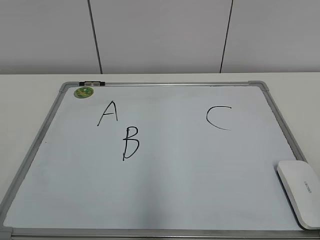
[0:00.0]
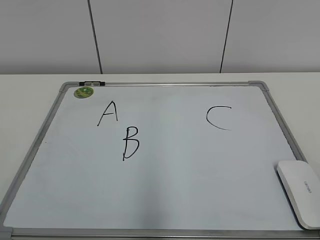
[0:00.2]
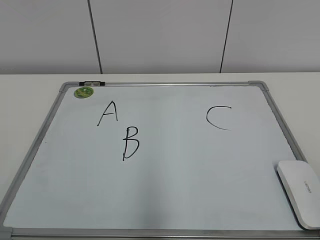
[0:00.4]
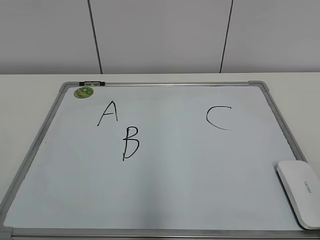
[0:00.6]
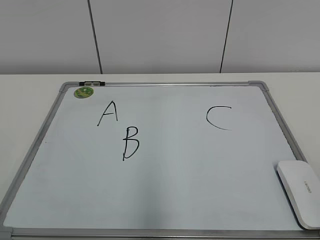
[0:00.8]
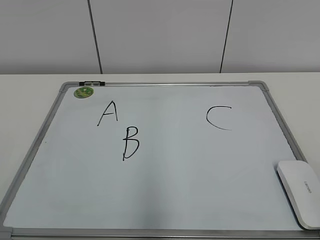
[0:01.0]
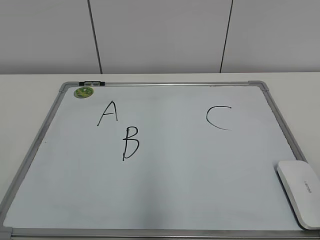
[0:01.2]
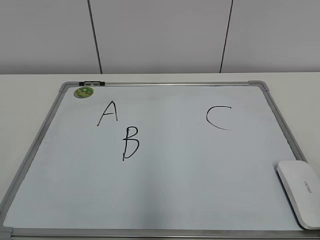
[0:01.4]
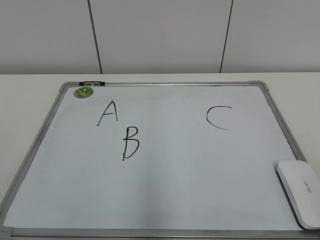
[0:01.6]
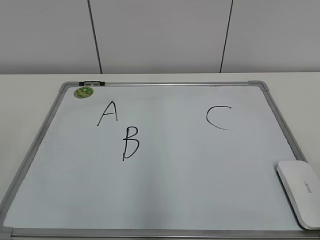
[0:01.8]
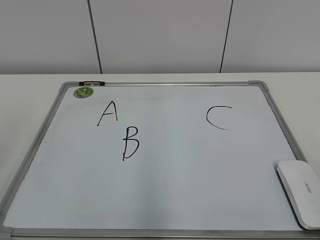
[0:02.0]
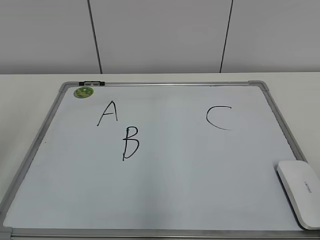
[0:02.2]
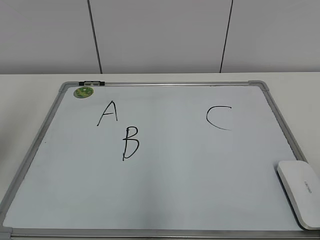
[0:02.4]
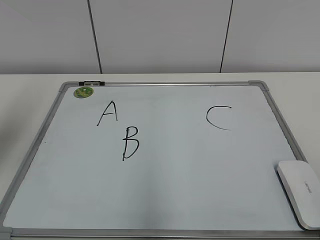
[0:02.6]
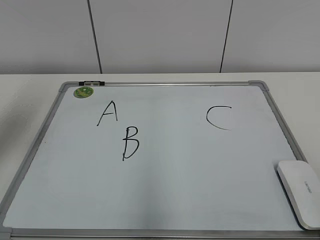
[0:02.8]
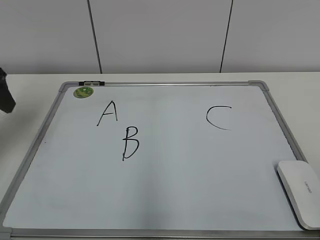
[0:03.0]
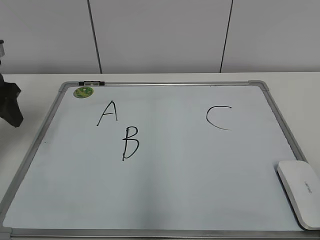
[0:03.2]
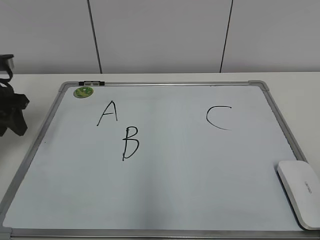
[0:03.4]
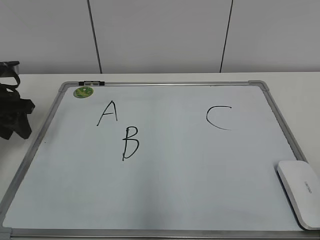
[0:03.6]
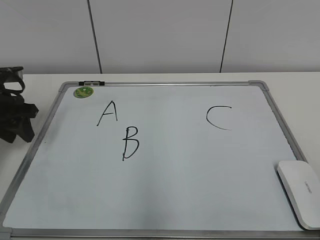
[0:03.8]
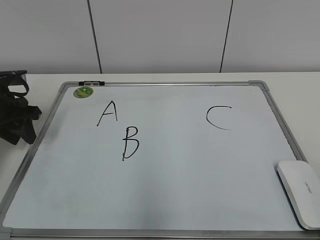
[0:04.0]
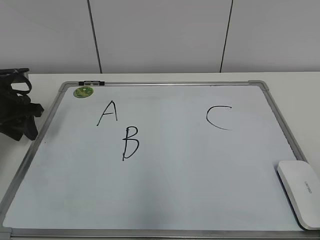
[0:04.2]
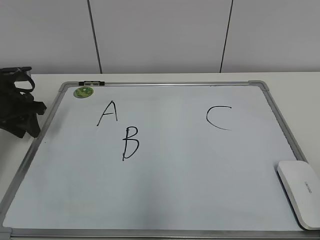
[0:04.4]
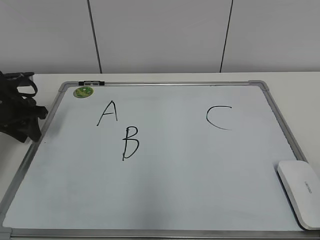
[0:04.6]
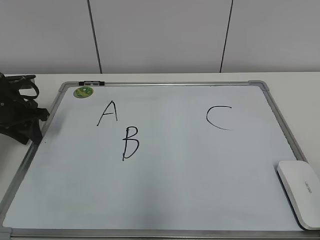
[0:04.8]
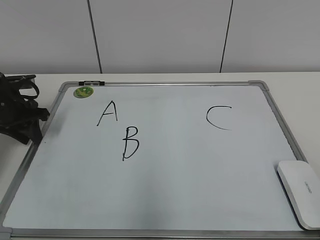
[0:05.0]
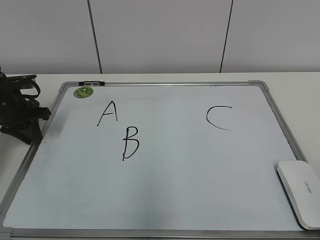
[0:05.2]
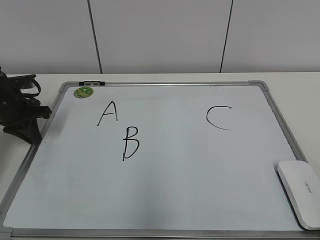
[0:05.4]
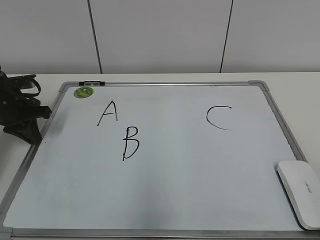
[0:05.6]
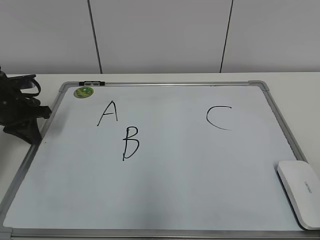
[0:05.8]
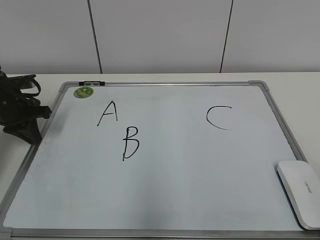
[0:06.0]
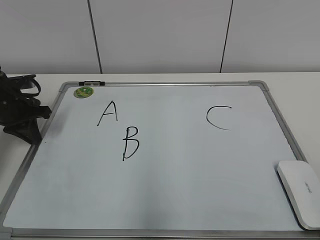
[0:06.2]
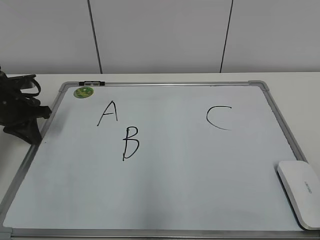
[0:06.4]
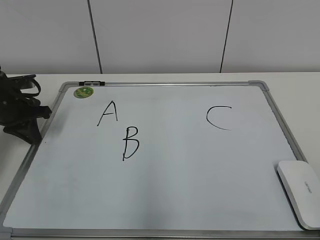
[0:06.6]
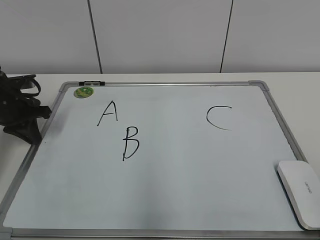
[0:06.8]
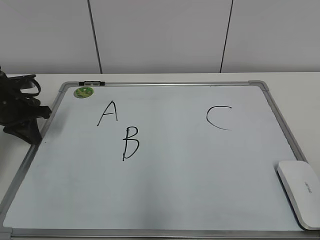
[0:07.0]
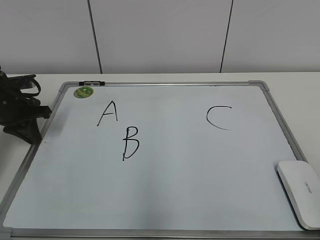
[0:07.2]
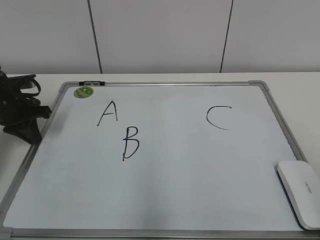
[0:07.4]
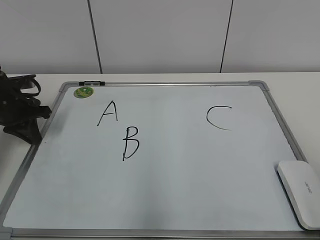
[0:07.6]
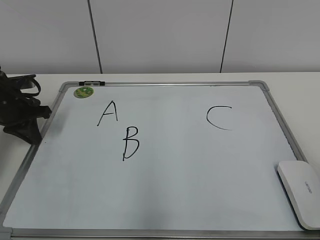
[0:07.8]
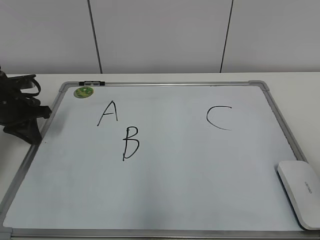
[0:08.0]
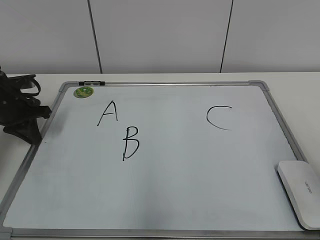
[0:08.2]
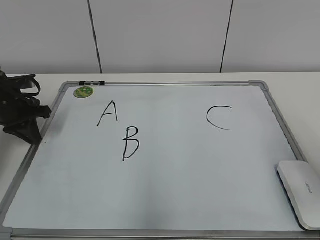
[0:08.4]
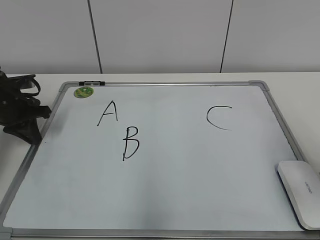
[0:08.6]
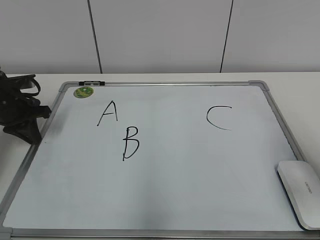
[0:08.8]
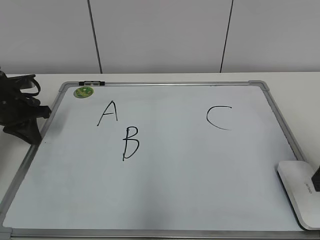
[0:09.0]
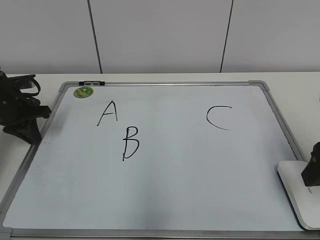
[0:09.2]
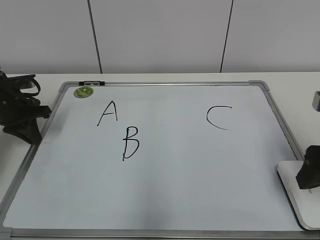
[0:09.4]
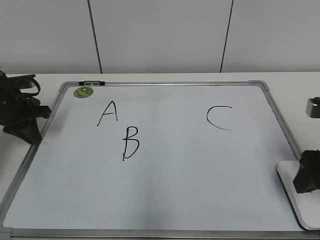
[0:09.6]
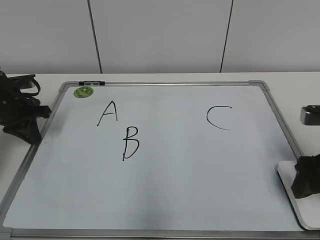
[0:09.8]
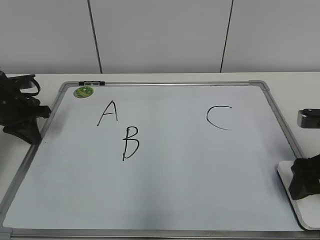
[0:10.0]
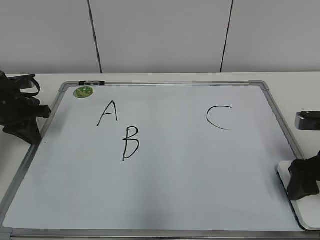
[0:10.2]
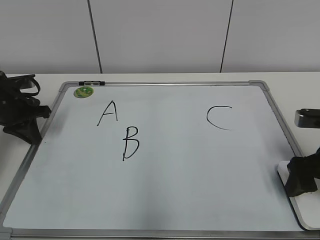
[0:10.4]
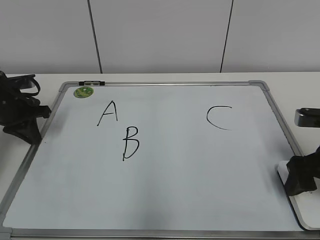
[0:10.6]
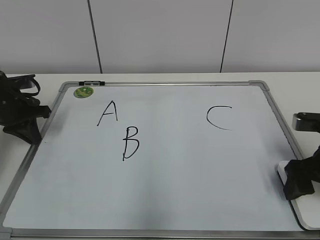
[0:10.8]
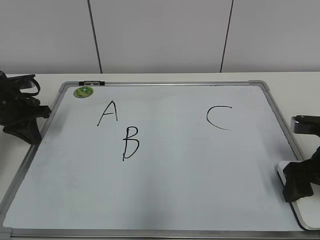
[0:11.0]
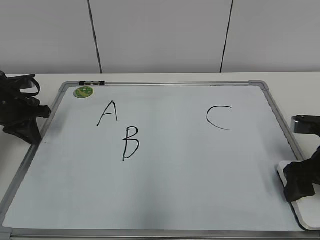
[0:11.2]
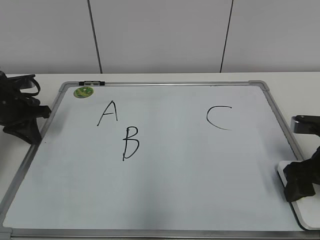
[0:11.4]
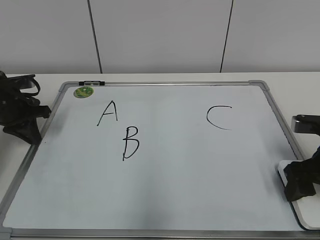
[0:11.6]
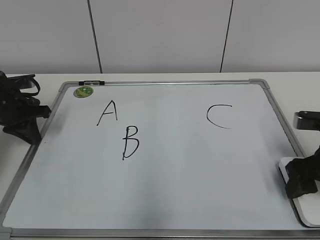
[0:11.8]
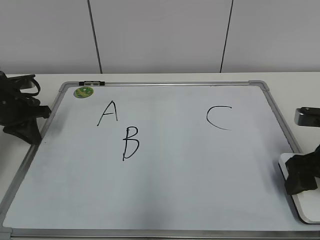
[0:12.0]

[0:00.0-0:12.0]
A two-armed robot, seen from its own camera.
Task of the whole recording: pick up the eraser on the blackboard and erase the letter "B".
Step, 0:00.0 to 0:05.2: Hold the drawing board steady with your left hand.
Step, 0:05.4 to 0:11.6: Grab the eraser with your right hand.
0:01.6 to 0:03.0: The left gripper moves forward, some 30 cm.
0:03.0 to 0:04.4: The left gripper shifts some 15 cm downward and forward, and closes up.
0:04.4 to 0:06.0: The left gripper closes its fingers.
0:07.6 to 0:09.0: The right gripper heads forward, covering about 15 cm.
0:09.0 to 0:10.4: The right gripper is displaced downward and forward by approximately 10 cm, and opens up.
0:10.4 to 0:12.0: The right gripper closes its fingers.

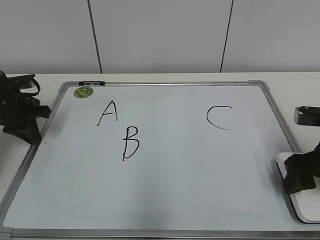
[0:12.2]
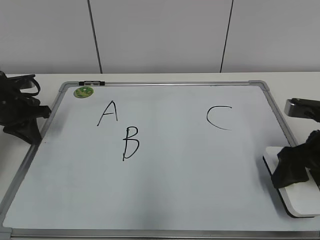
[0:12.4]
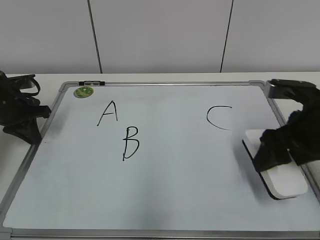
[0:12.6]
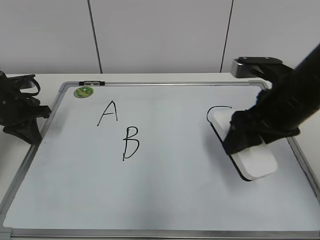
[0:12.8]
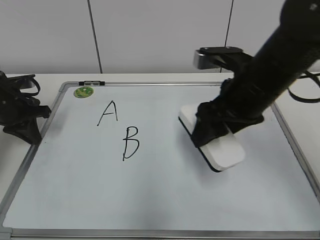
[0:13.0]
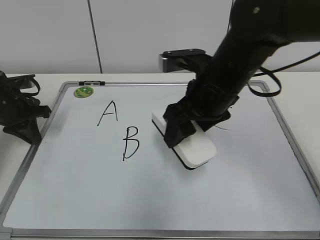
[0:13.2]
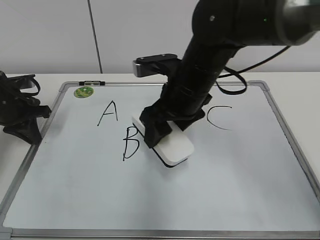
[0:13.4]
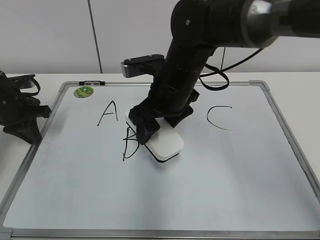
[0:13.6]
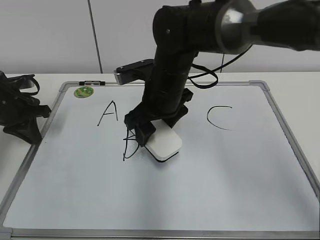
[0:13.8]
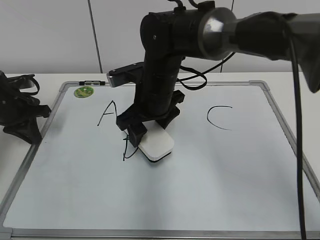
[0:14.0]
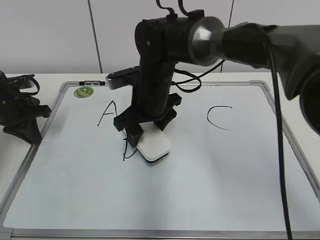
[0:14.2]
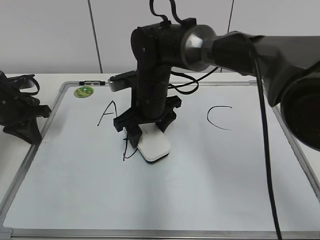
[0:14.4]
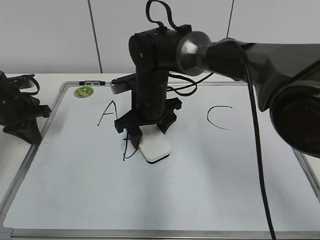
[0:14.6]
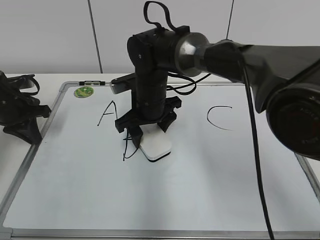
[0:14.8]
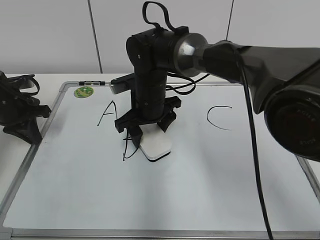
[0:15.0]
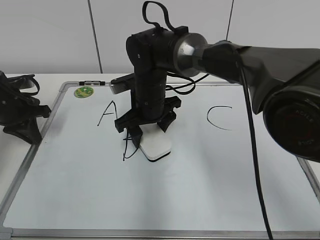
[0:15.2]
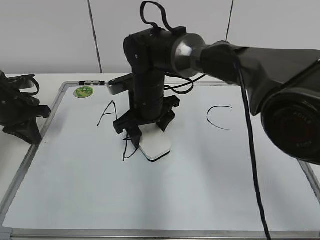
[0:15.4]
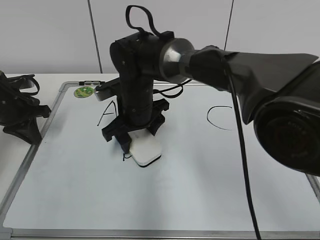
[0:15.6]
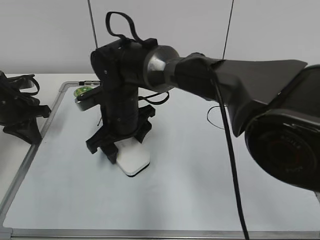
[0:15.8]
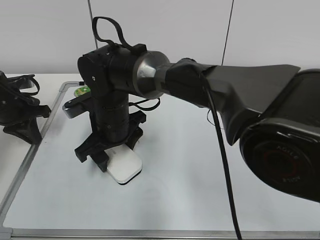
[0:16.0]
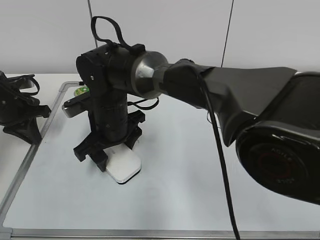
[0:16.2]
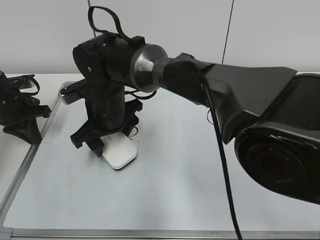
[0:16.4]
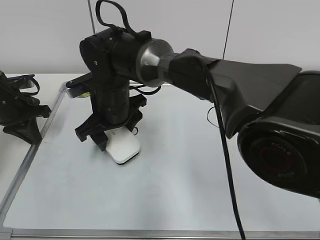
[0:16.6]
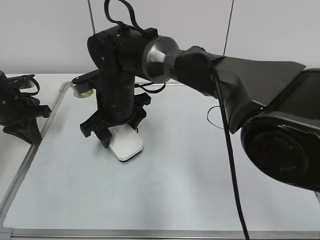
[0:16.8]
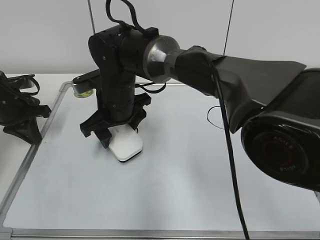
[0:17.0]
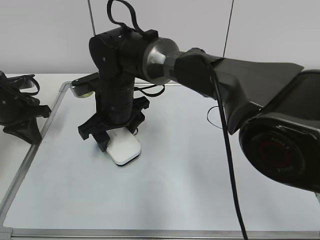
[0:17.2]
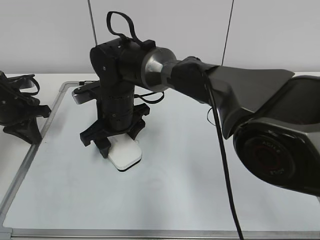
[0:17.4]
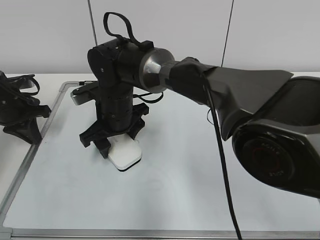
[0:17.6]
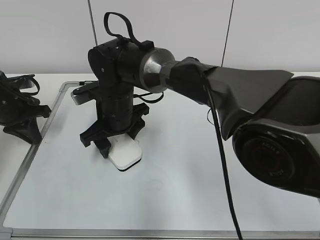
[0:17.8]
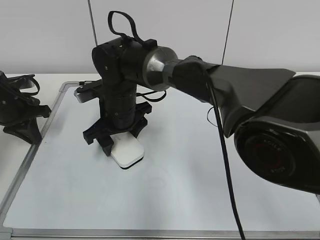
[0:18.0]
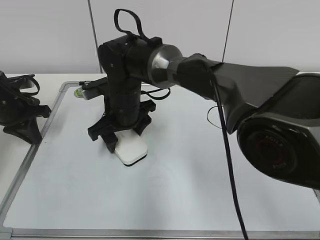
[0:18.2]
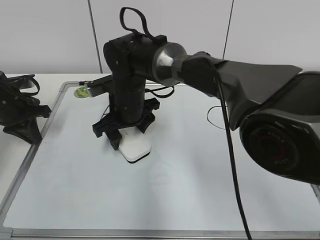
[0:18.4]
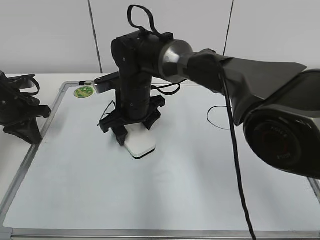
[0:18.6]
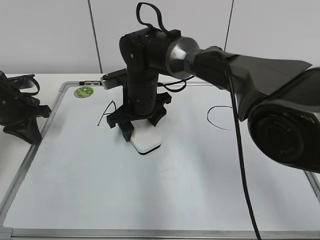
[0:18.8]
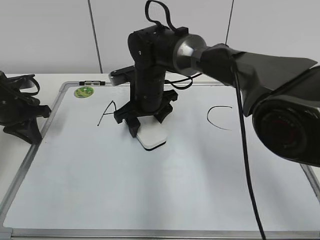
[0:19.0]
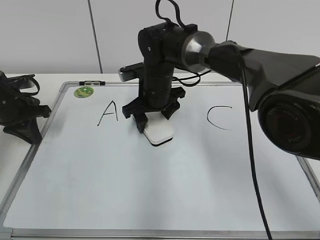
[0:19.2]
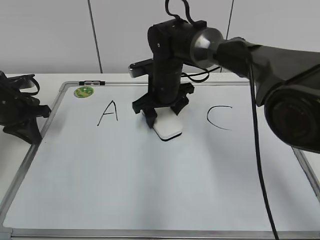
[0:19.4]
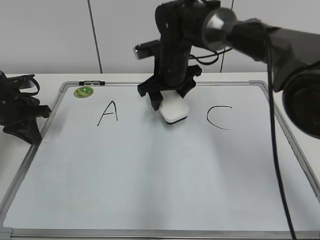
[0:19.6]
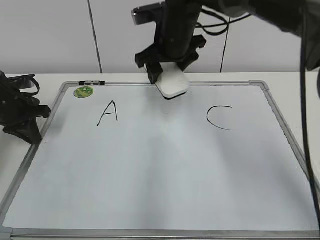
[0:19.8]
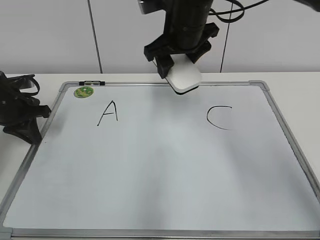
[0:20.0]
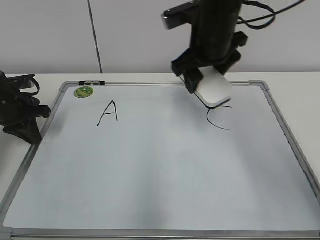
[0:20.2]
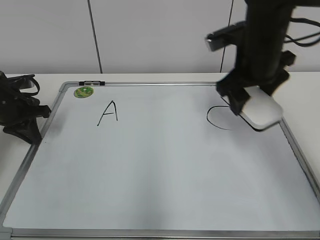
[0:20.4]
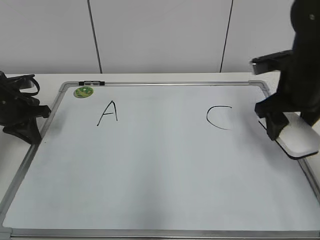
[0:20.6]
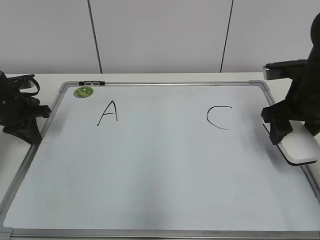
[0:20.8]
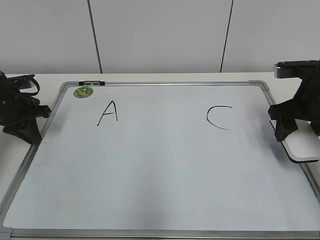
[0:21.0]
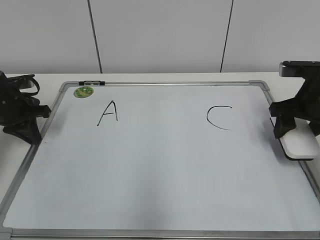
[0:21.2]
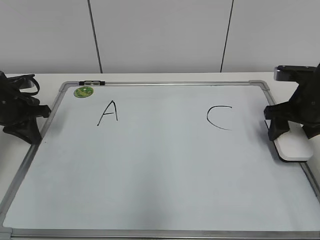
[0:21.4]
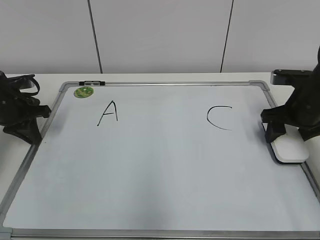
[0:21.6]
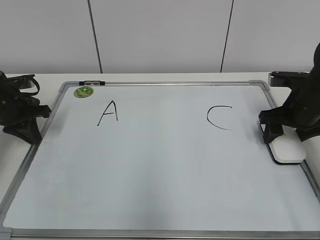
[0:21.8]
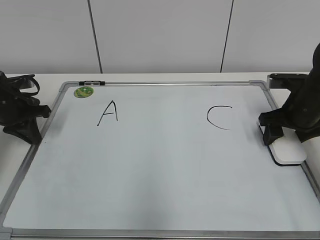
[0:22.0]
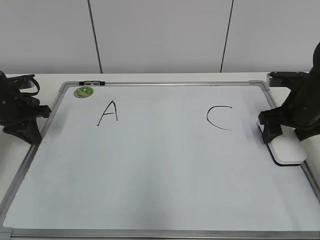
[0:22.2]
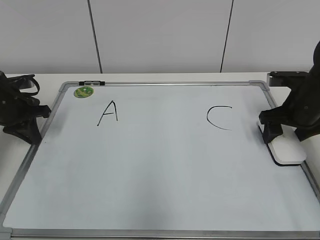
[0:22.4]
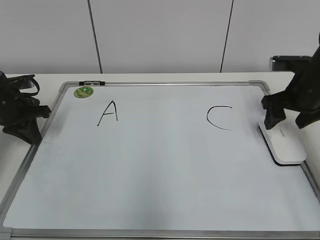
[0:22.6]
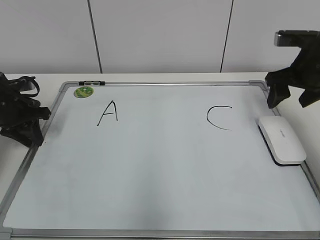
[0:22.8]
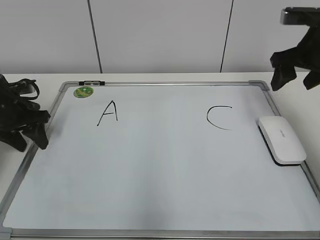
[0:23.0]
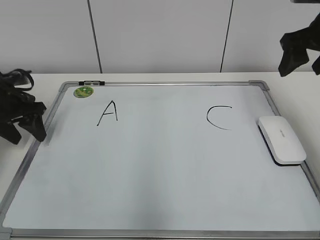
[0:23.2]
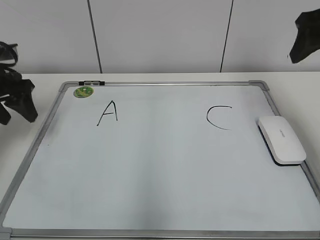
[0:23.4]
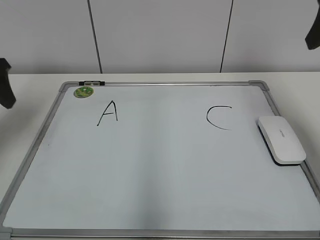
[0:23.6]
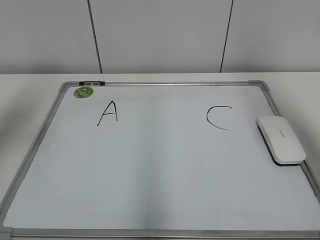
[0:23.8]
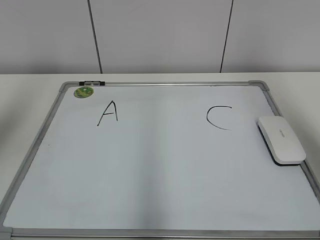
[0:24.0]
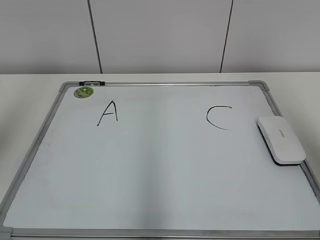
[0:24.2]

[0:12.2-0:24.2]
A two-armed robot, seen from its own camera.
Task of the whole recording: pick up the eraser on the blackboard and erase the letter "B".
Step, 0:12.2 to 0:19.2: Erase the letter B with your right hand.
Step, 0:19.4 to 0:22.4: Put down the eraser with your right hand.
0:12.2 to 0:13.8: The right gripper is displaced to the left and forward by roughly 30 cm.
0:13.8 to 0:15.2: The right gripper moves roughly 5 cm.
0:15.2 to 0:16.6: The right gripper travels to the left by about 5 cm.
0:16.6 to 0:18.2: The grippers make only small movements.
0:18.2 to 0:19.8: The right gripper is displaced upward and to the right by some 15 cm.
0:19.8 to 0:21.2: The right gripper shifts roughly 25 cm to the right.
0:21.2 to 0:22.6: The right gripper opens.
0:22.6 to 0:24.2: The grippers both shift upward and backward by some 35 cm. The left gripper opens up.
